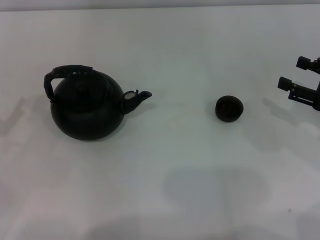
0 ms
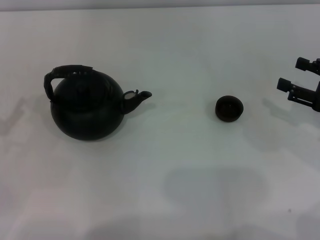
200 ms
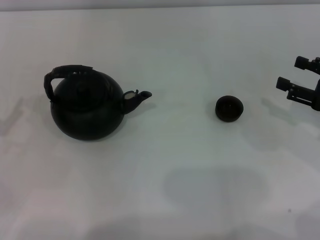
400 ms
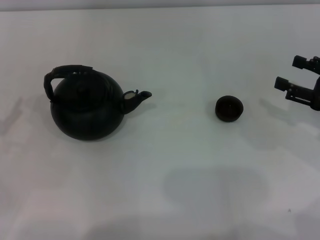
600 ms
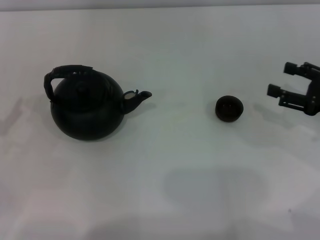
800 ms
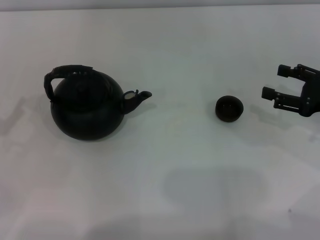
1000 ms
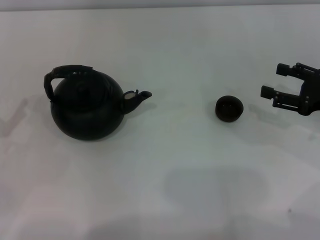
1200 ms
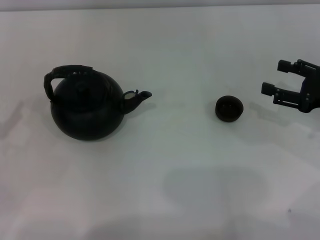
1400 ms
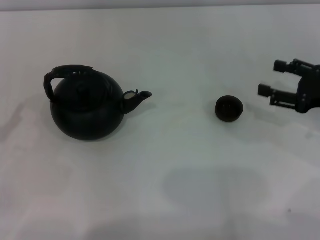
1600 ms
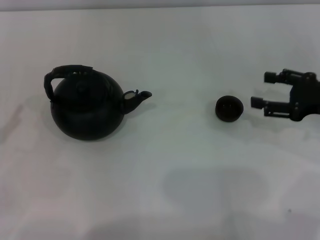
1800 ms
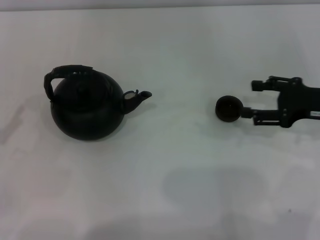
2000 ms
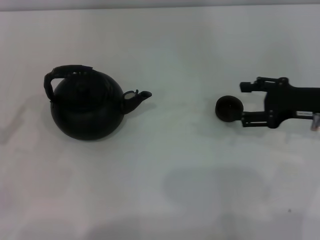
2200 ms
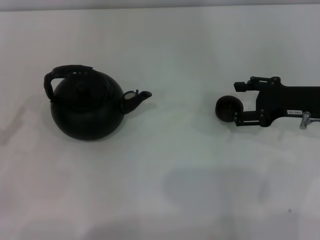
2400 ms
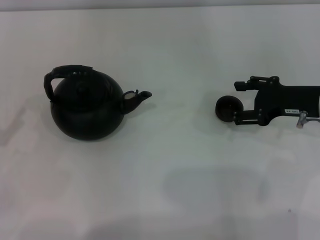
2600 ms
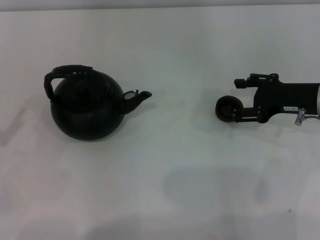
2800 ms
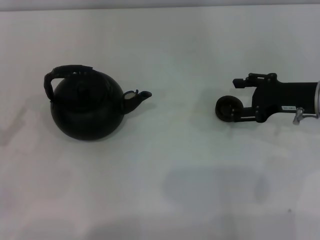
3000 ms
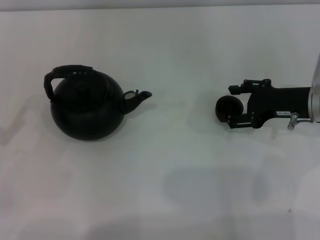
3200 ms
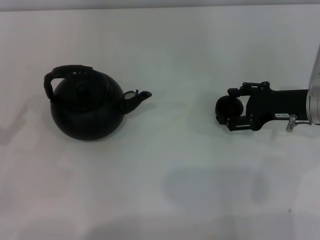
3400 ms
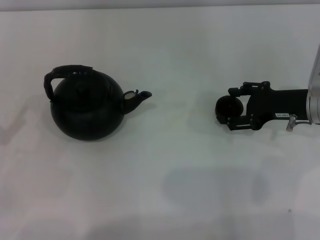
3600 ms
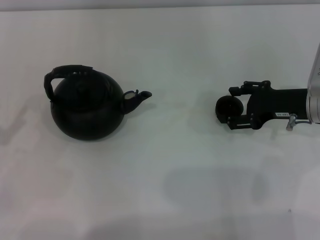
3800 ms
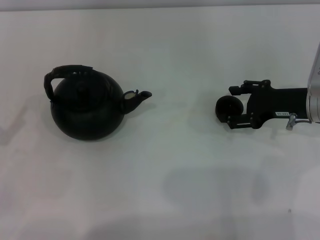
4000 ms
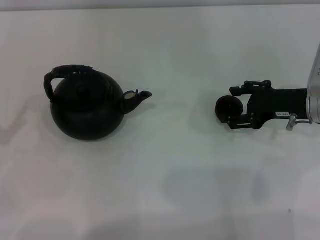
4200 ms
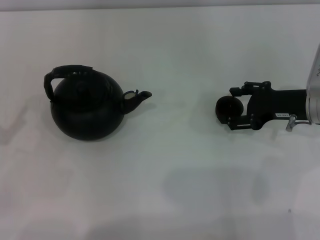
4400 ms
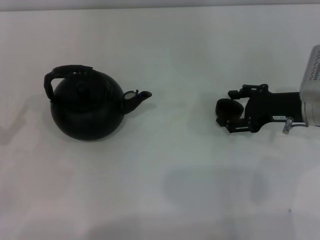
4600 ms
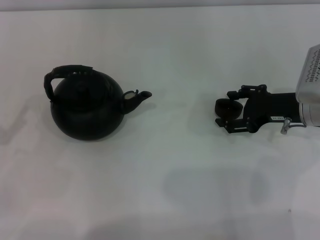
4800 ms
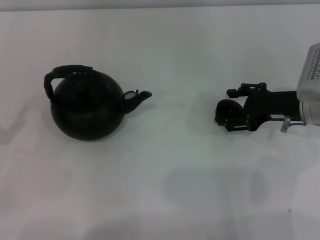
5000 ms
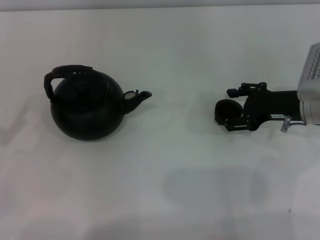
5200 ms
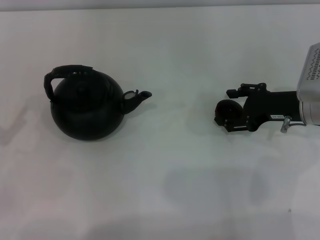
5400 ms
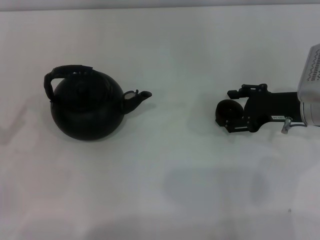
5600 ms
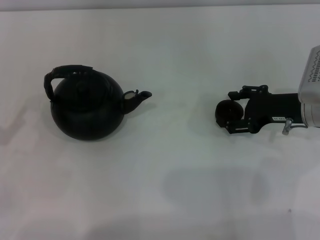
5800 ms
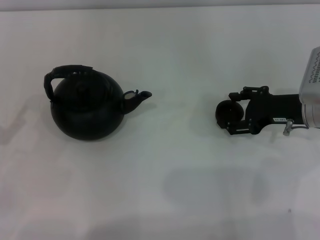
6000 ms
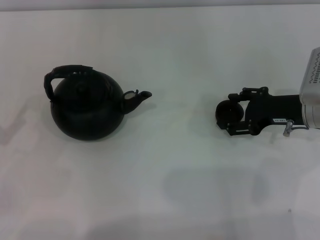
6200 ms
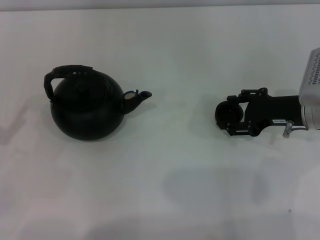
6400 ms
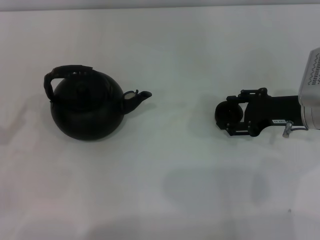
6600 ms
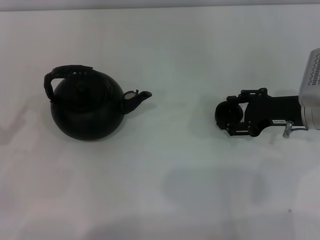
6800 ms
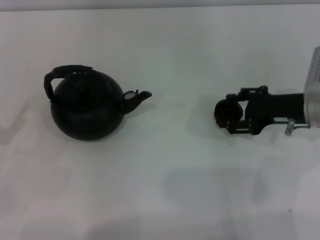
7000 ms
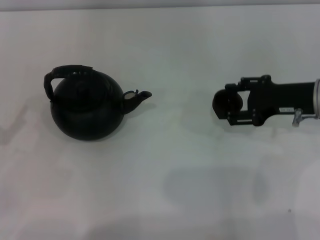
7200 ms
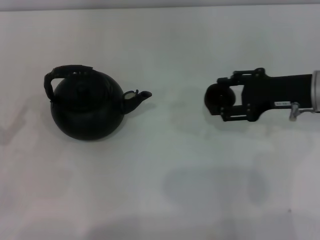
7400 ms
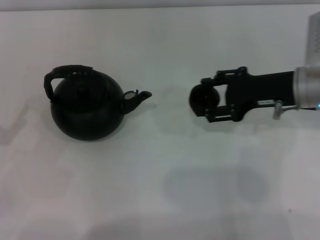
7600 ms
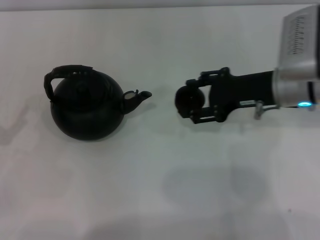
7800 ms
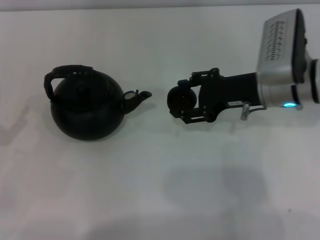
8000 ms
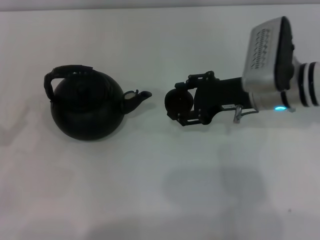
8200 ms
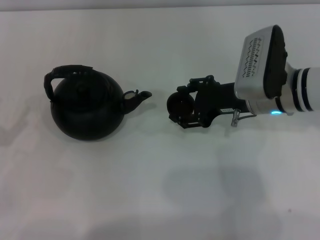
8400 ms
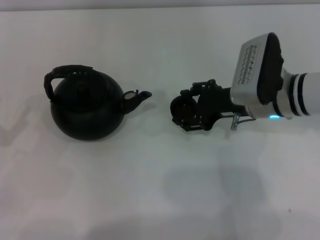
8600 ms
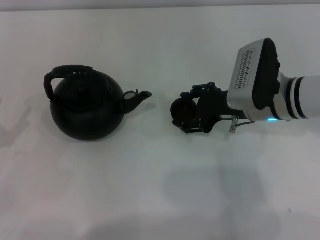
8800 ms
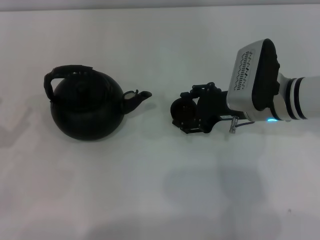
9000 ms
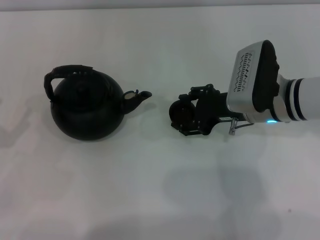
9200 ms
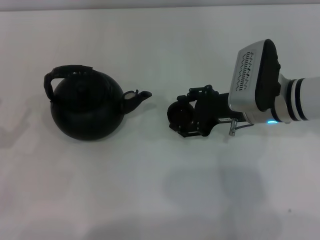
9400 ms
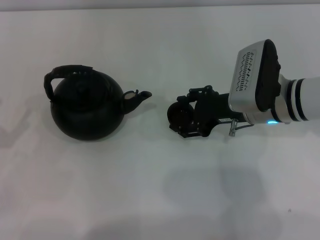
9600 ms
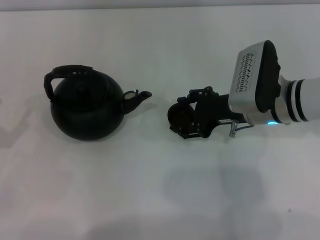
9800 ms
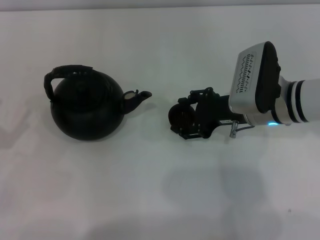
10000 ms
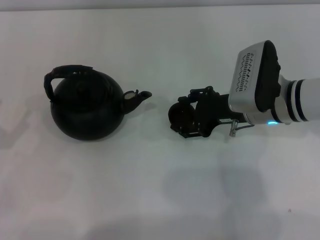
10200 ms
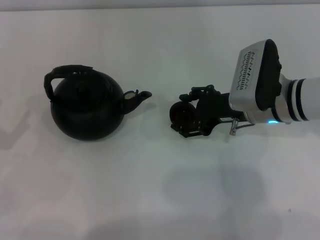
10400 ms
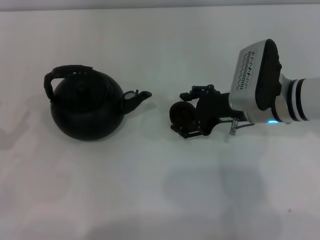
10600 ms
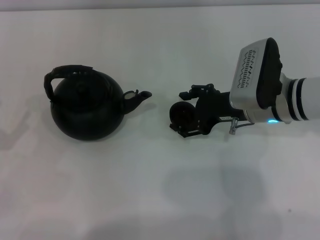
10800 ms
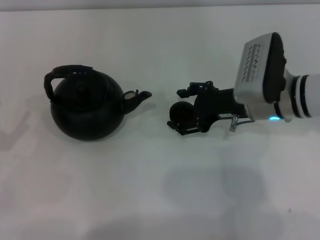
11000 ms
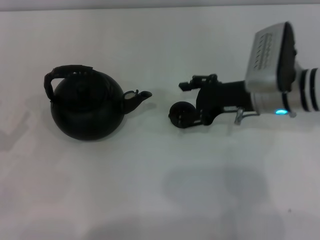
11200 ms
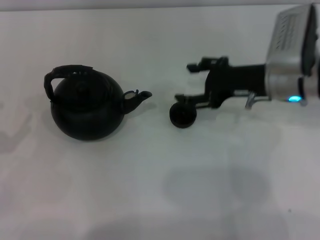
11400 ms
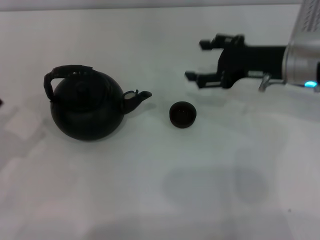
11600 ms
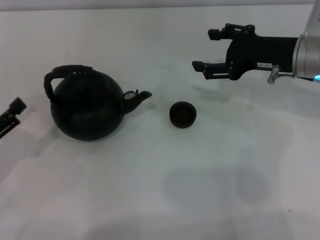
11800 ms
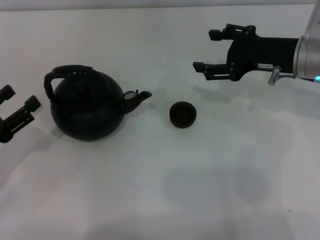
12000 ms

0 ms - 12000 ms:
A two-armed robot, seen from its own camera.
Task of the whole recording: Grasp the handle of the teapot with one hand and pour tea into the teacup.
Step, 0 ms - 7000 ms: Pick up the teacup with the right gripper.
Step, 7200 ms - 11200 ms: Place the teacup in the center of view with the right gripper.
0 ms - 1600 ms: The grippers stay close to where they were, moving slightly.
1600 ms - 3000 ms: The right gripper travels to the left by some 5 cm.
3000 ms - 4400 ms: Neither gripper changes place.
4400 ms - 6000 ms: Both grippers stay put.
6000 ms - 7600 ms: The right gripper shifts roughly 5 cm upward.
7600 ms - 9000 ms: The right gripper shifts about 5 cm to the left.
9000 ms - 10400 ms: The two grippers keep their place.
10400 ms - 12000 ms: The left gripper shifts by about 5 cm. Meanwhile the right gripper is displaced upward and to the right by some 10 cm.

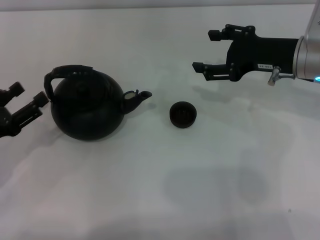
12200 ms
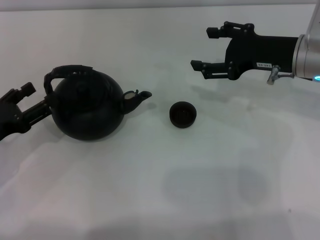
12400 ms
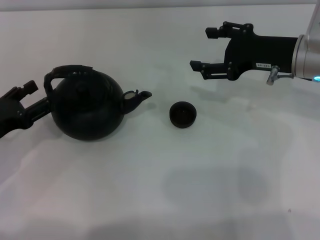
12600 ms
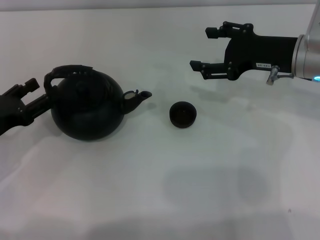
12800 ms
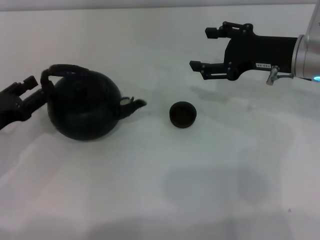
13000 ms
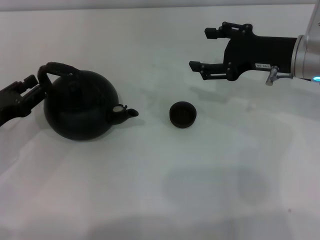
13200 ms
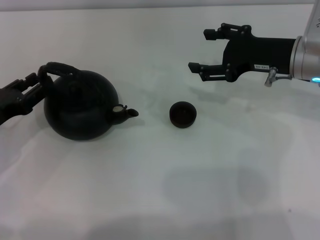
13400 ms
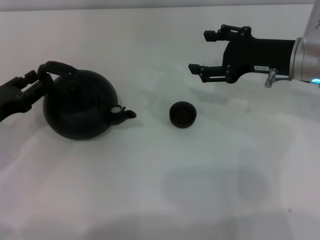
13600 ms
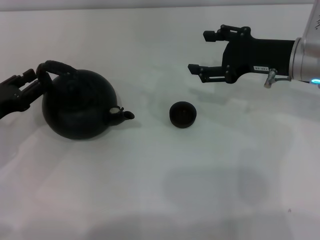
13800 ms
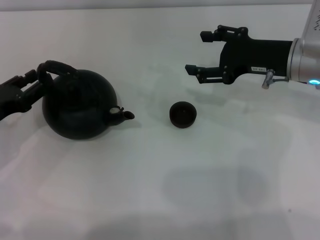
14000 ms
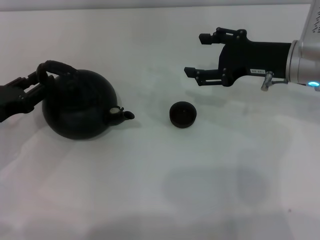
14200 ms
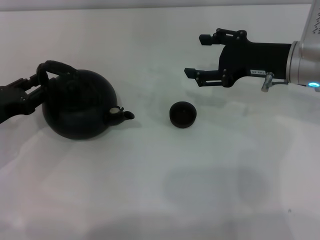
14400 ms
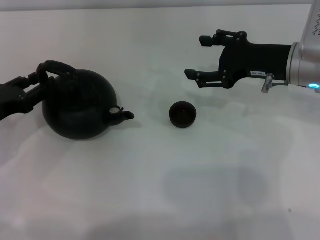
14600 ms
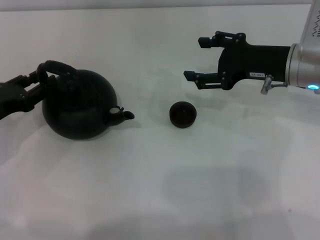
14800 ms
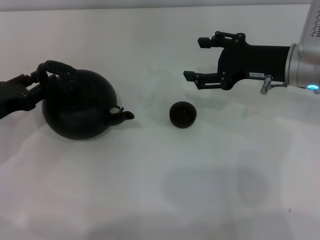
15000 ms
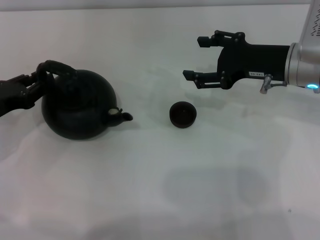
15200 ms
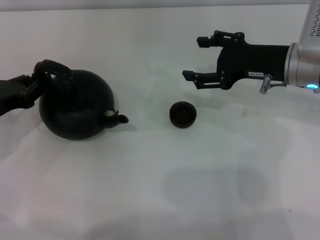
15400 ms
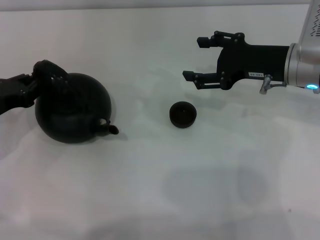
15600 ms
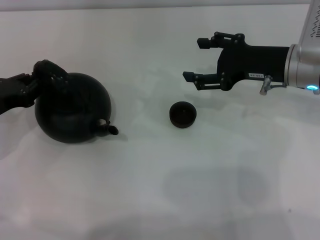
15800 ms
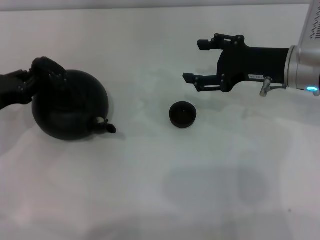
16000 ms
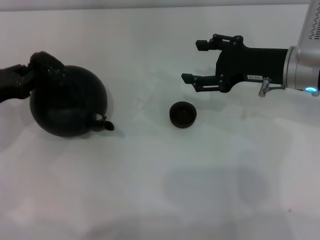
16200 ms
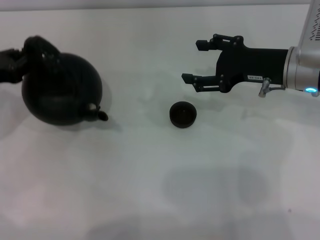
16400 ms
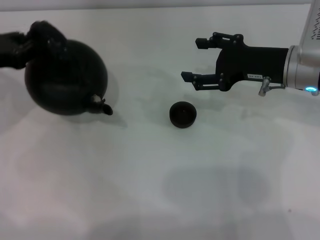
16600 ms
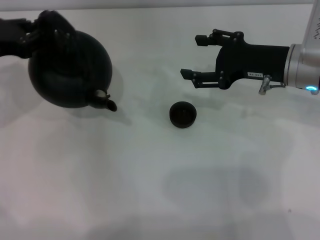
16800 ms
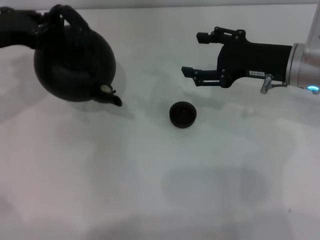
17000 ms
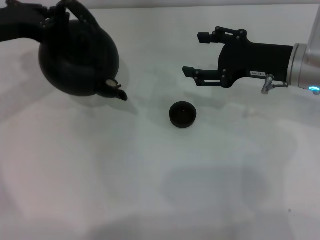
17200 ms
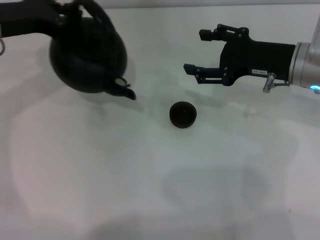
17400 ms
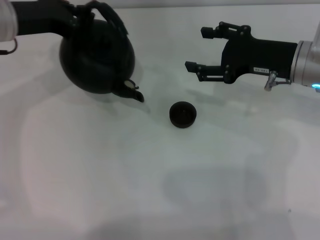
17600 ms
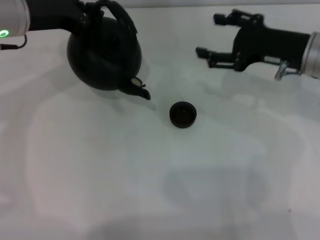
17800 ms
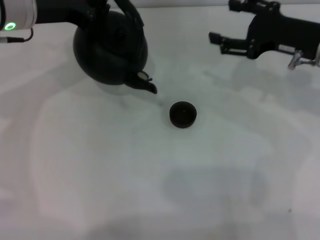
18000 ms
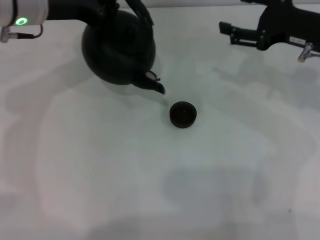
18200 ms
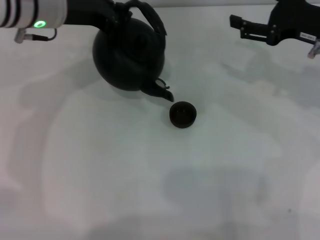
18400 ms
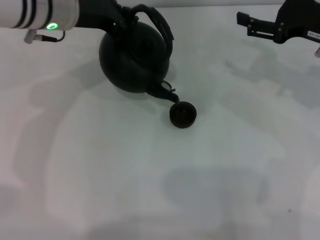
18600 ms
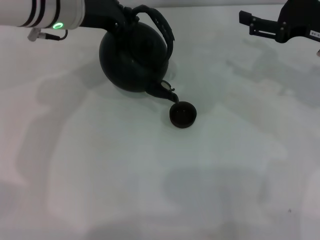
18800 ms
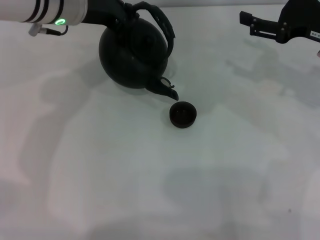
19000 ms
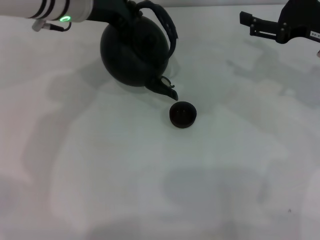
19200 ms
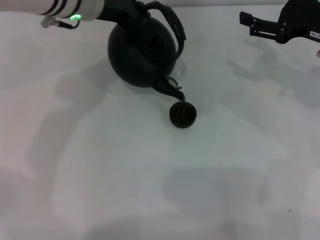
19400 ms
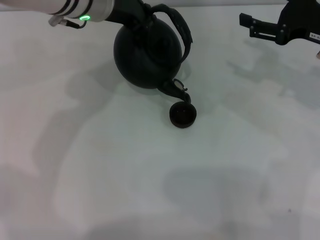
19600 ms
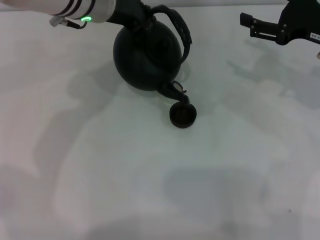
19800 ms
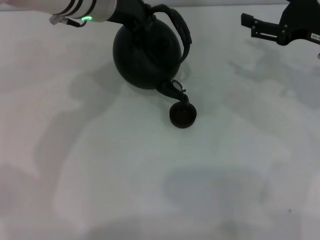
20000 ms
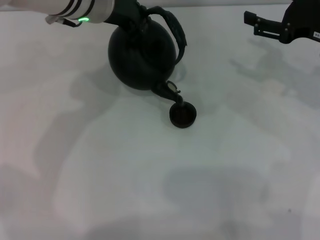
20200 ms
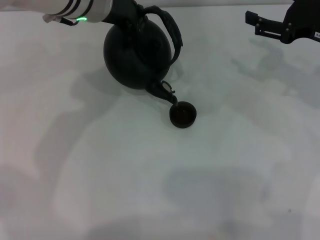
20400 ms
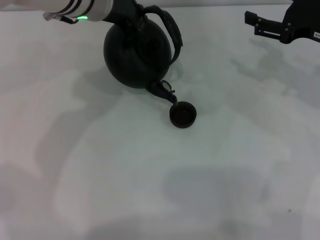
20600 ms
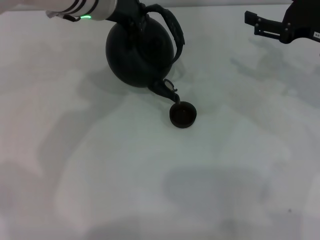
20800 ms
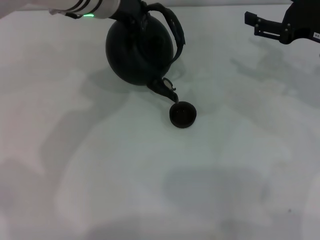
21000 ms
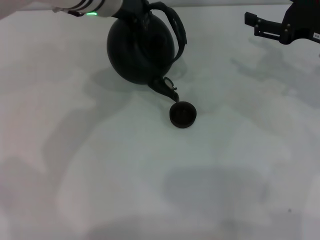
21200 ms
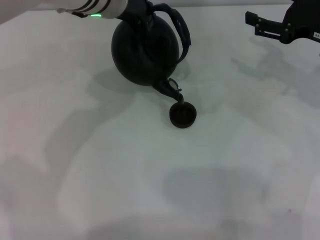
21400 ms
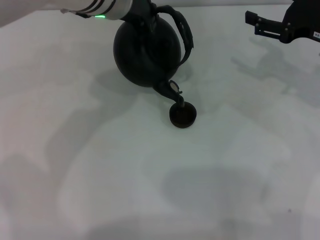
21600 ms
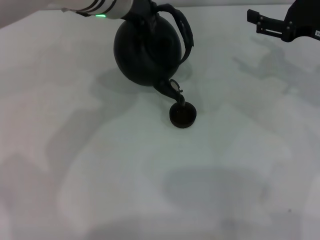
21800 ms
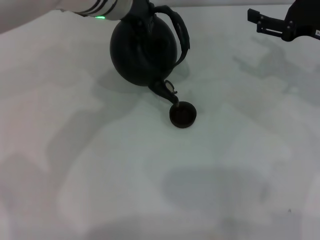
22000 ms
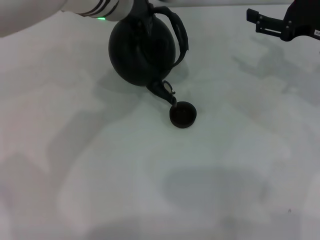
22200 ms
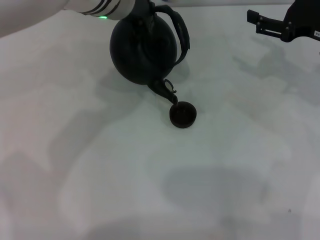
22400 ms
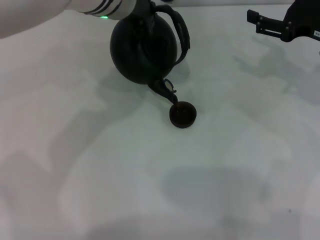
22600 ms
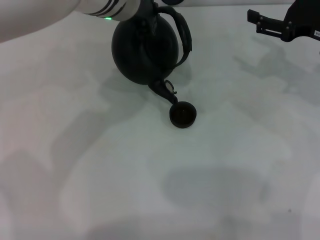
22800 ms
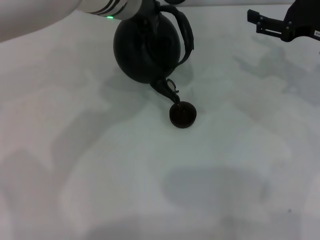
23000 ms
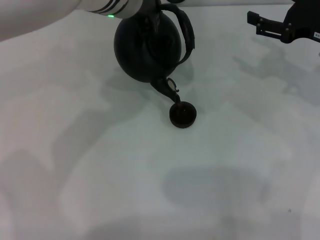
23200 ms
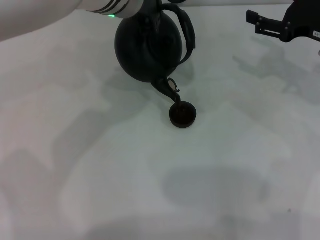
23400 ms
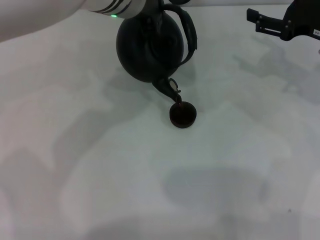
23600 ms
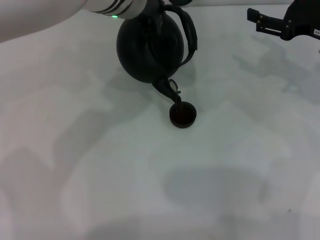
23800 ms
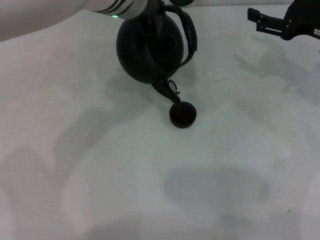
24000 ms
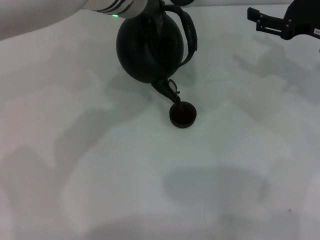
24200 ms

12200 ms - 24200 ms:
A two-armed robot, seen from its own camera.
Task of the whole recording: Grasp the handle of the teapot with one hand and pour tea into the teacup.
Step, 12200 ms - 16800 ms: Pick up the teapot with the left gripper.
12200 ms - 13800 ms: The left gripper closes its fingers.
13800 ms - 15200 ms: There are only small adjustments of the grippers.
15200 ms - 16600 ms: The left gripper goes some 5 cm upward, and closes.
16600 ms - 18200 ms: The left gripper travels to the right, forward and upward by about 15 cm; the right gripper shifts roughly 5 cm to the right.
18200 ms - 19800 ms: The left gripper moves to the right, some 10 cm.
19800 ms - 21200 ms: There are only small adjustments of the grippers.
21200 ms - 24200 ms: The grippers move only a little.
